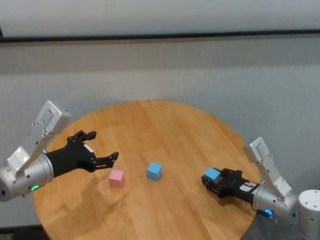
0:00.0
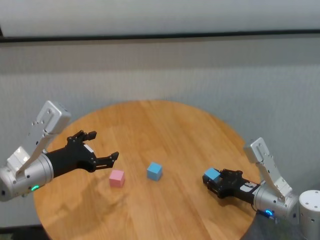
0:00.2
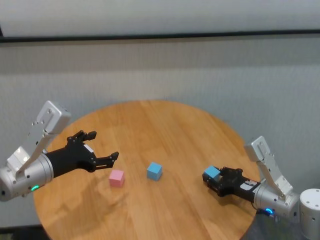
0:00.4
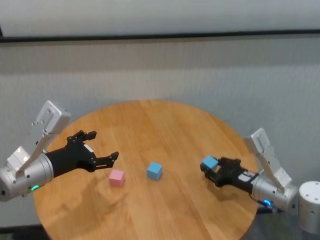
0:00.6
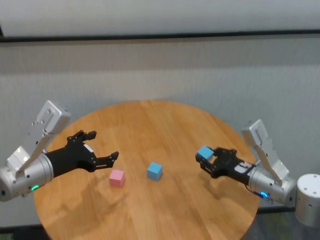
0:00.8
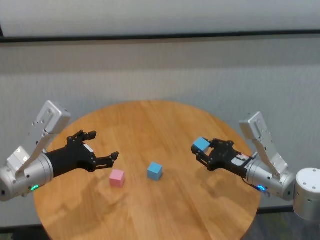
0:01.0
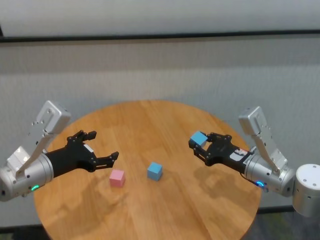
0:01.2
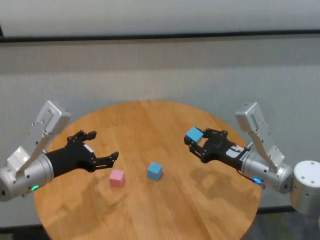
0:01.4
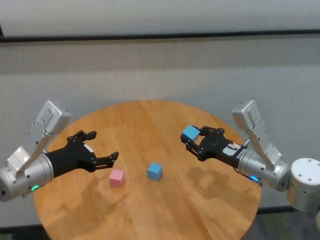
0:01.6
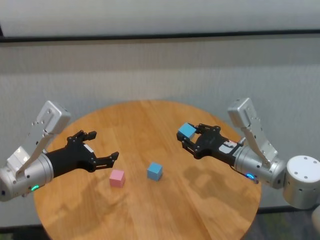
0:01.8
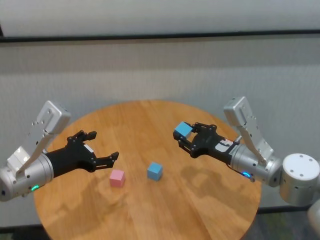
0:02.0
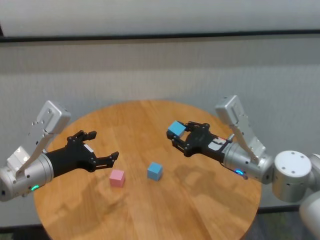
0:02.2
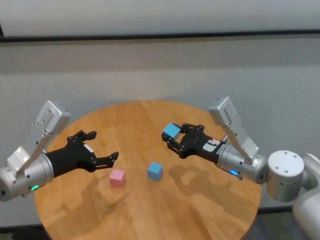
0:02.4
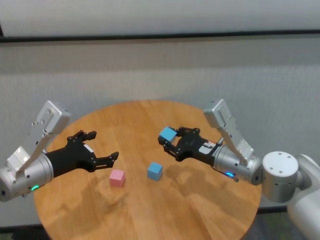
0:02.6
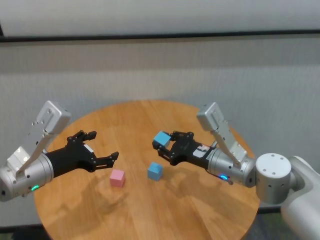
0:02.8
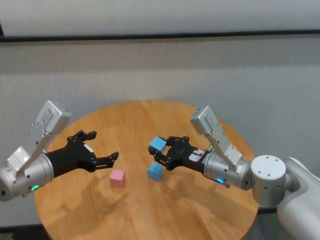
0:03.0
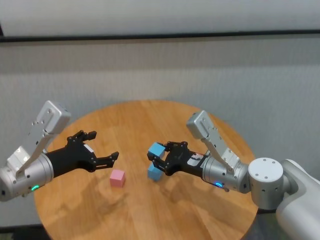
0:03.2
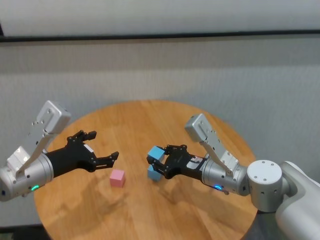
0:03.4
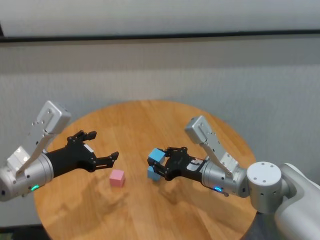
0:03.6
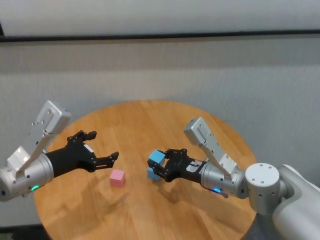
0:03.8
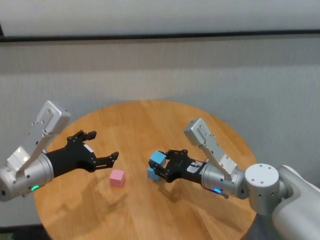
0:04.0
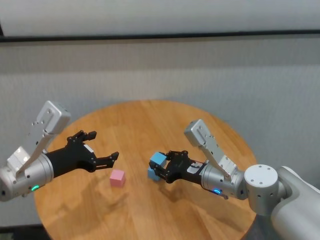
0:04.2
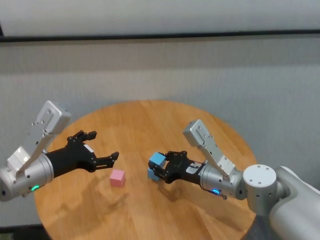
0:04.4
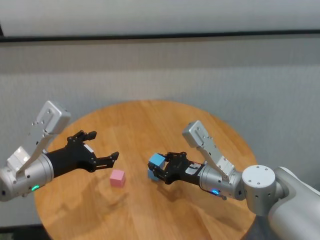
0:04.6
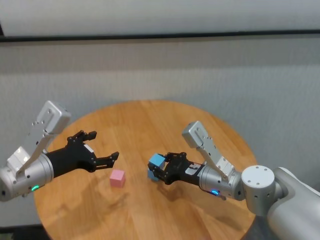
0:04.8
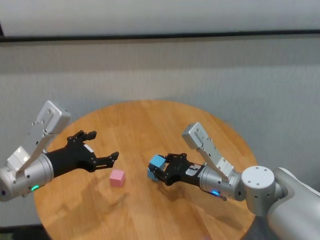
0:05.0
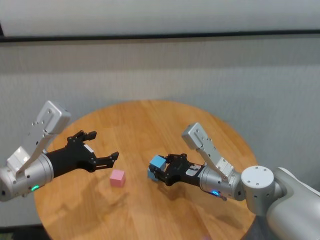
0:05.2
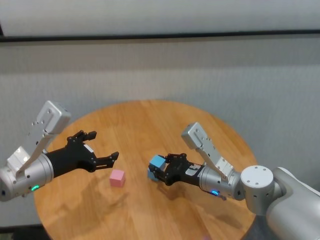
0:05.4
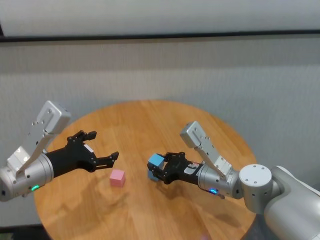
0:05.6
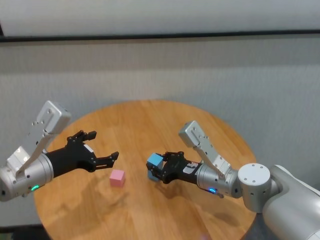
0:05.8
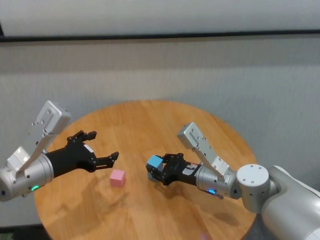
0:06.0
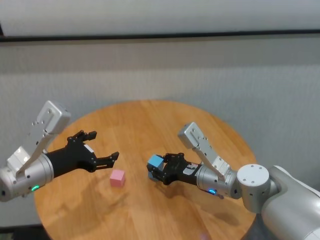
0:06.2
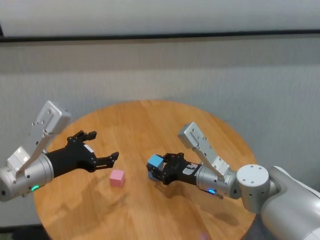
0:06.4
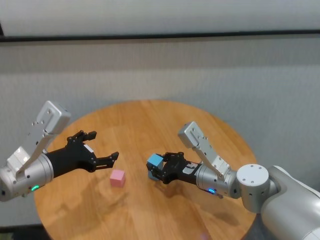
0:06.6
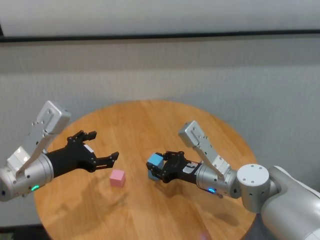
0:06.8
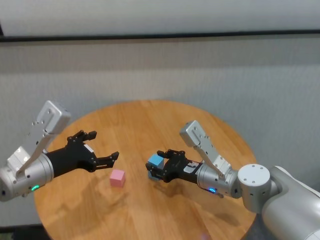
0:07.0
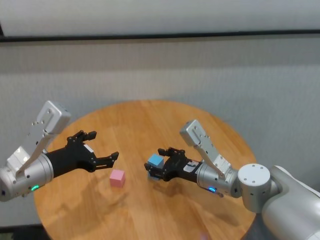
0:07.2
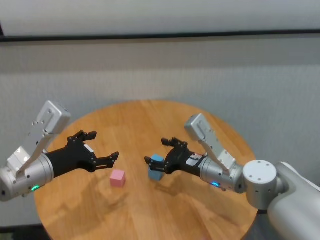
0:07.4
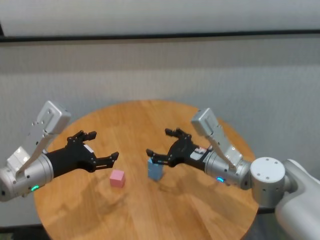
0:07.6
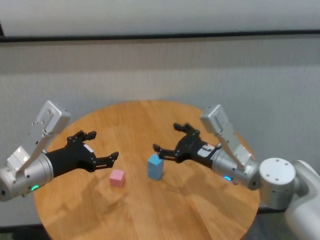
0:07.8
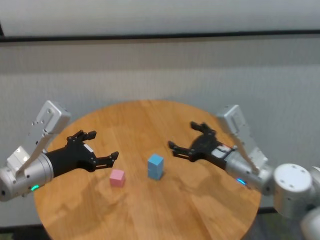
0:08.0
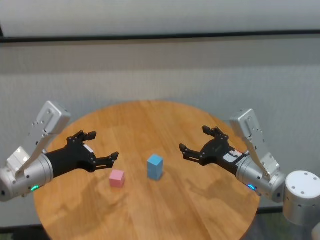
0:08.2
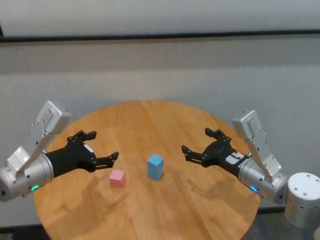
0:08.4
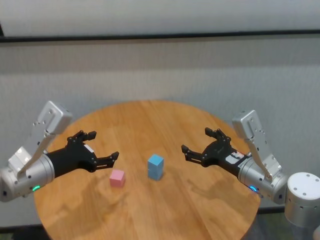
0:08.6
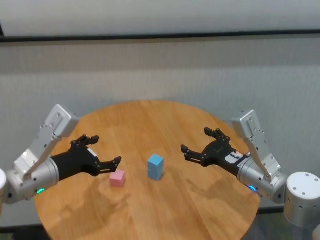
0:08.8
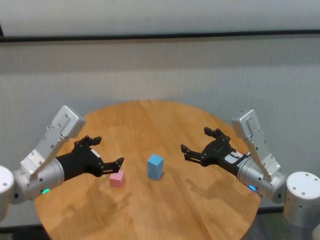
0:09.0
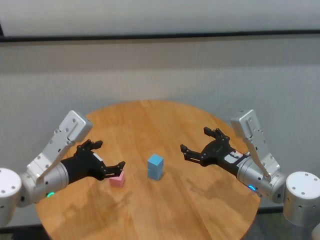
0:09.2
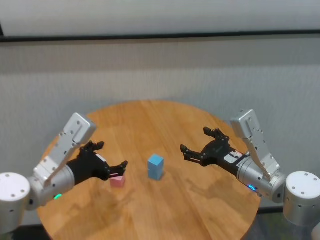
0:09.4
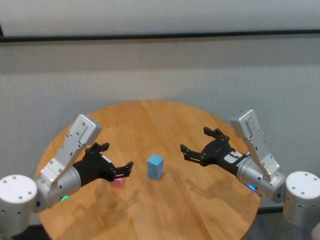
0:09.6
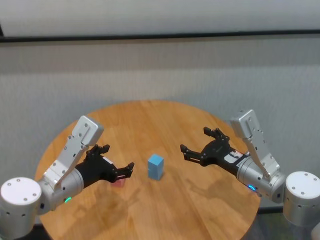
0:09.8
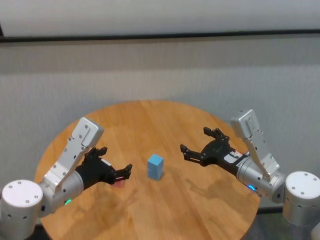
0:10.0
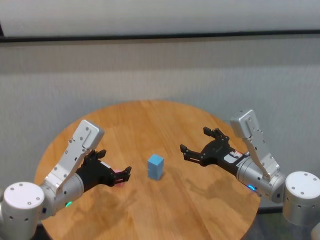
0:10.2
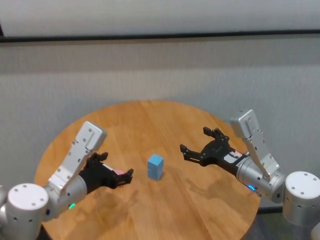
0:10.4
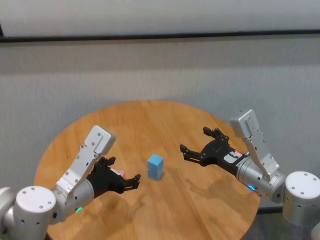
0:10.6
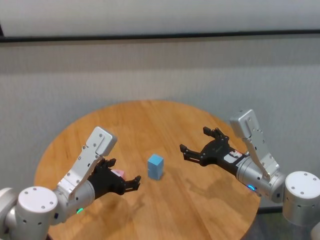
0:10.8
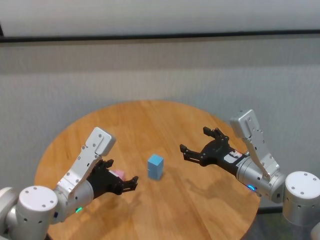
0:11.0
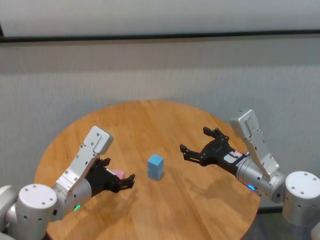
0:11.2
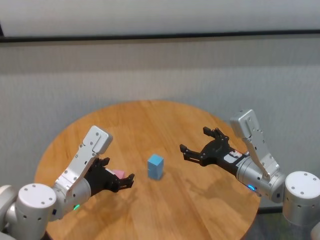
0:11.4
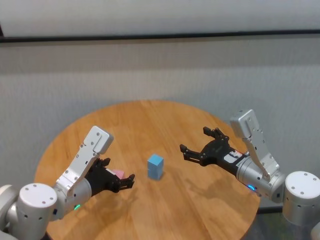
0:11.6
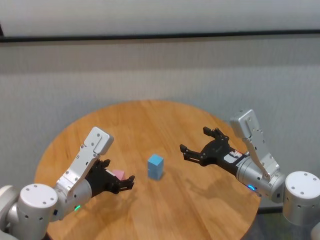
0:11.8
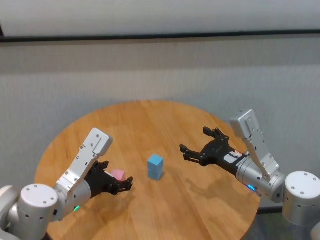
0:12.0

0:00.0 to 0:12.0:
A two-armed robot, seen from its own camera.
Task of the whole recording: stack building blocks on the table.
Step, 0:00.0 to 0:07.2: Place the blue building block on the blue building blocks with right gripper.

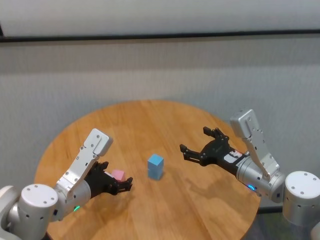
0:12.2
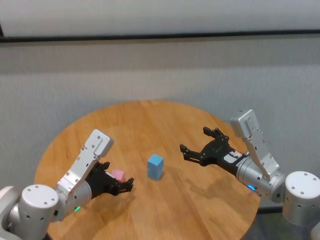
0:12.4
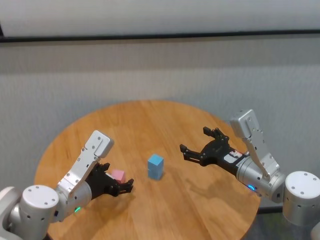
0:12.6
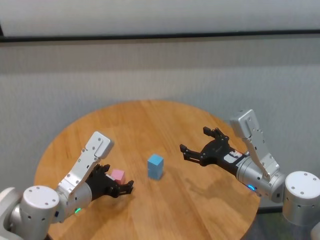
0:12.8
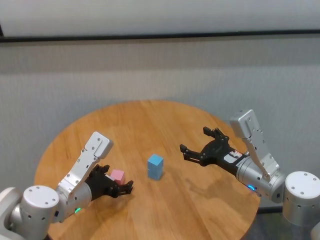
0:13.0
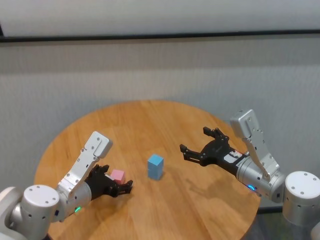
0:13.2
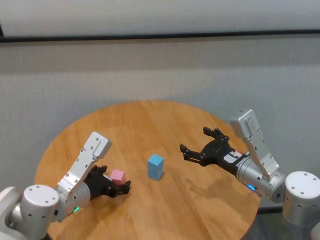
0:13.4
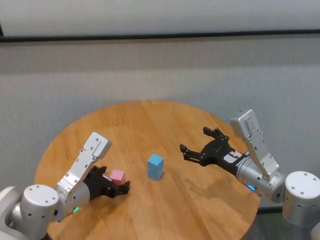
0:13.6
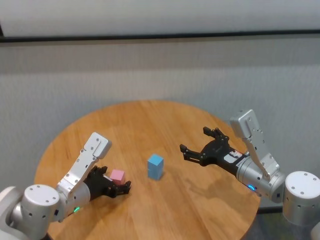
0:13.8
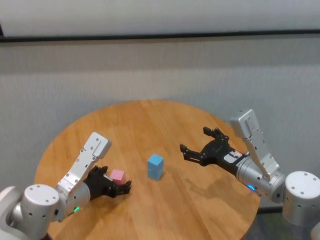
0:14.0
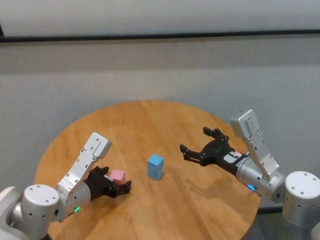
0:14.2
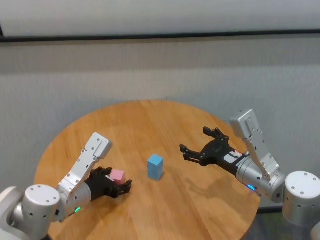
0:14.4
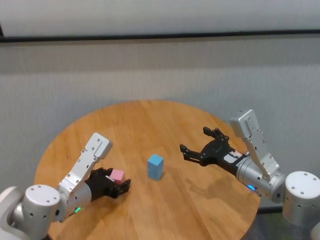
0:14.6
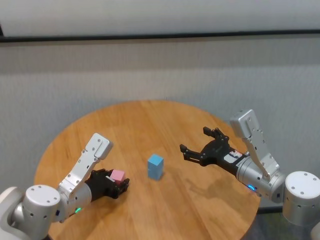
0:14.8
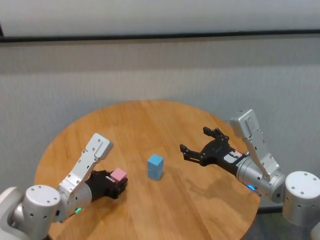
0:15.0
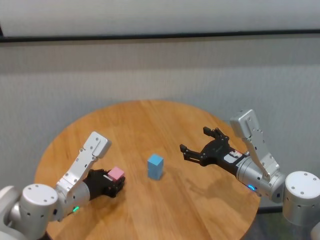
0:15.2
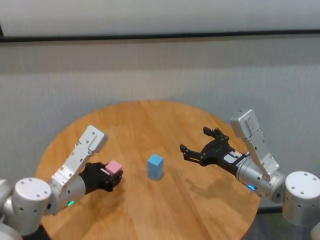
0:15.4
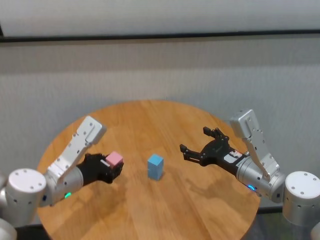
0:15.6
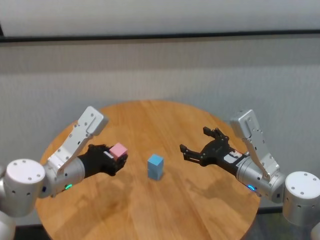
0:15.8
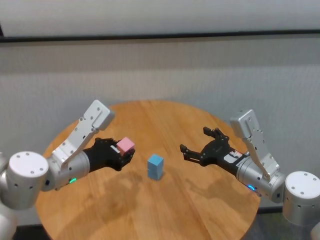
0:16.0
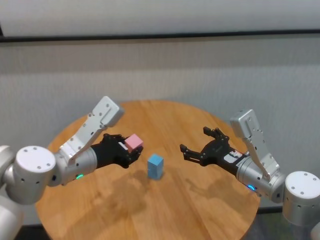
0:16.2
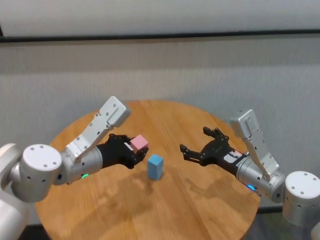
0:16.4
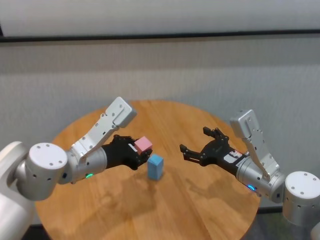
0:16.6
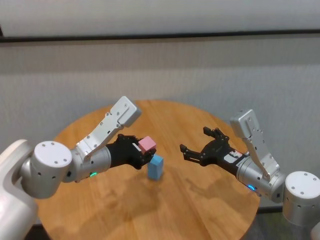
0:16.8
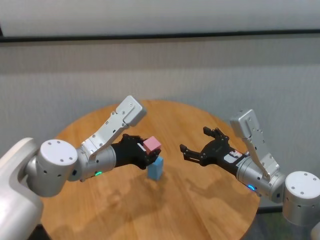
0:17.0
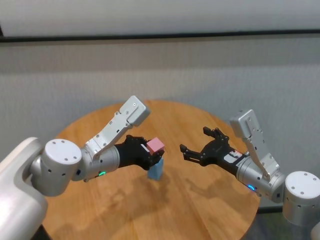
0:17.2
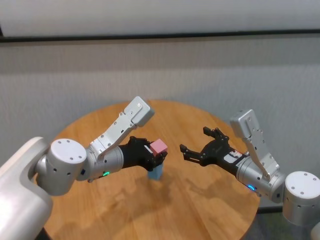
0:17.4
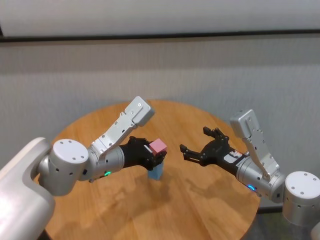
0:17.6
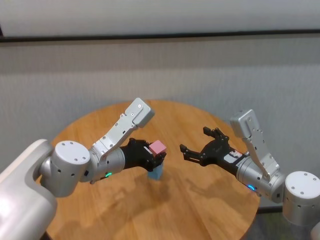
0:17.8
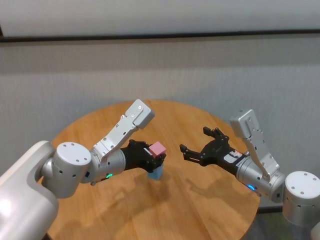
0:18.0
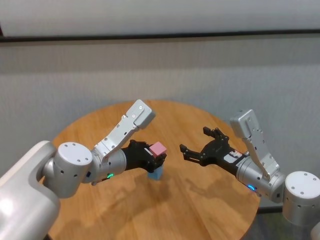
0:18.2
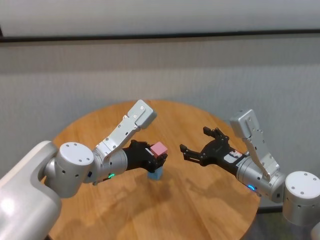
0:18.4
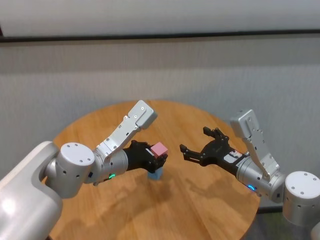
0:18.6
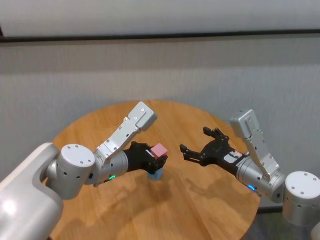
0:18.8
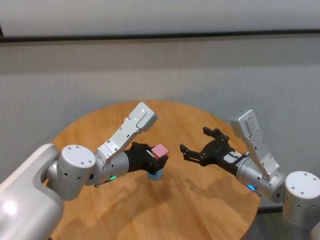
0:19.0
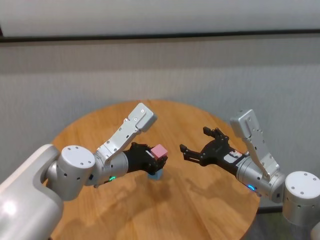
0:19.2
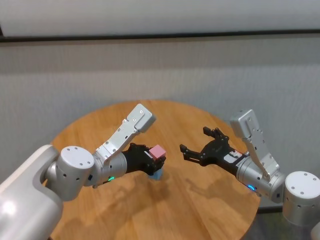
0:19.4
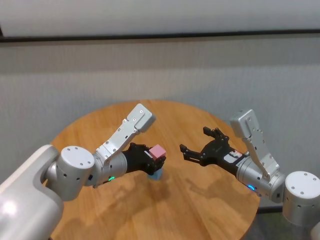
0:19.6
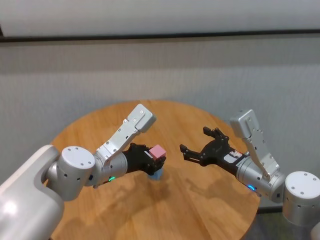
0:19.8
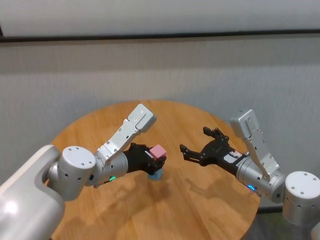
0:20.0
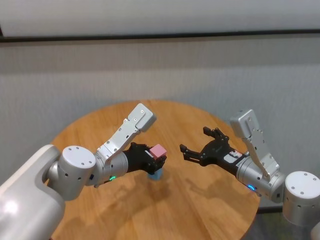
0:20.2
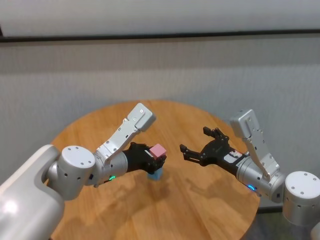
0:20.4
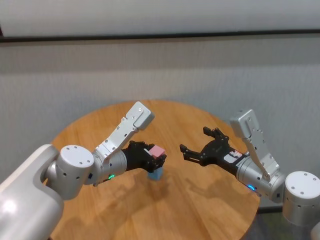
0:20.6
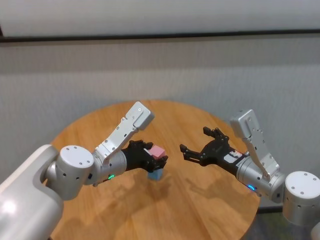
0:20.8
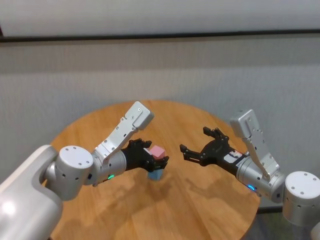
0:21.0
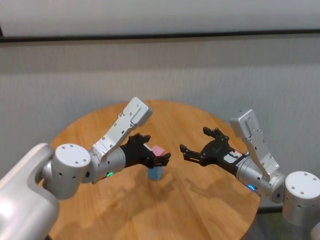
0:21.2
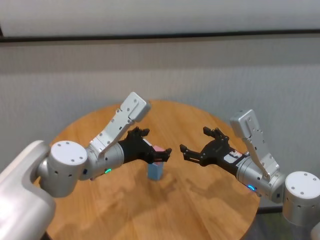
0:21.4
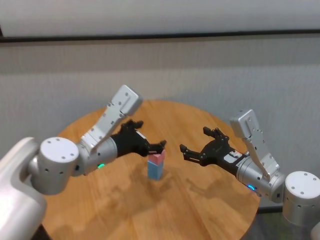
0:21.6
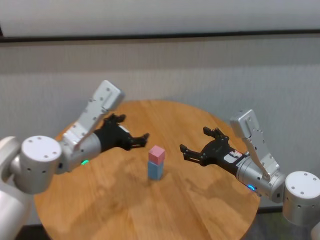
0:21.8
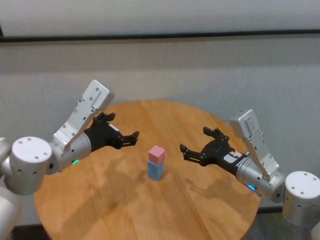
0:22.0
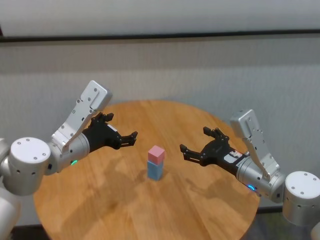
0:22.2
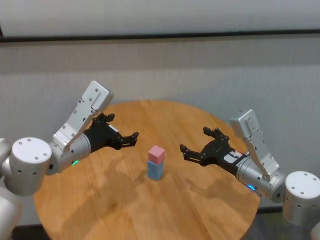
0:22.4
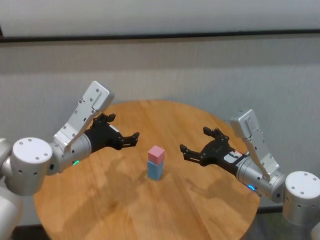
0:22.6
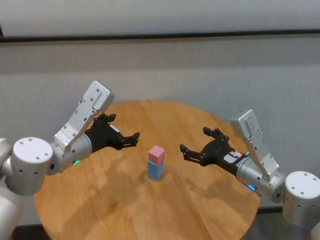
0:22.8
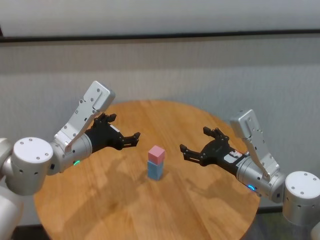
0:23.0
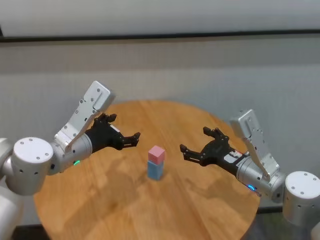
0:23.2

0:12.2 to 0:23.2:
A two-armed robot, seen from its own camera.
Task of the whole recording: stack building blocks on the table.
Step, 0:12.2 to 0:21.0: Place the pink building block on the blue building blocks with left gripper.
